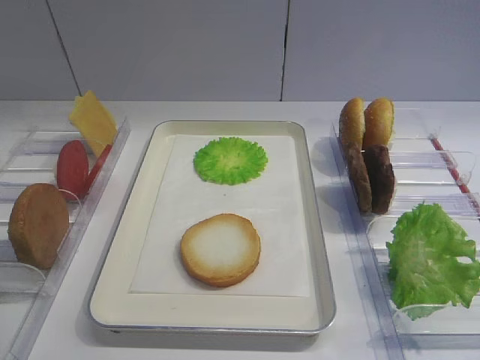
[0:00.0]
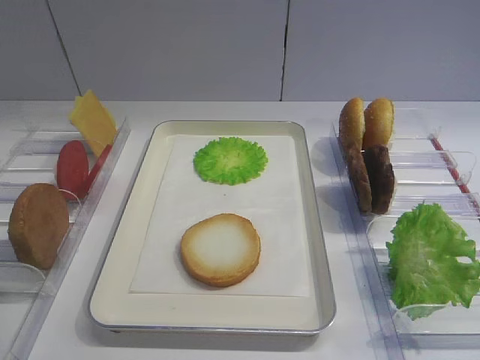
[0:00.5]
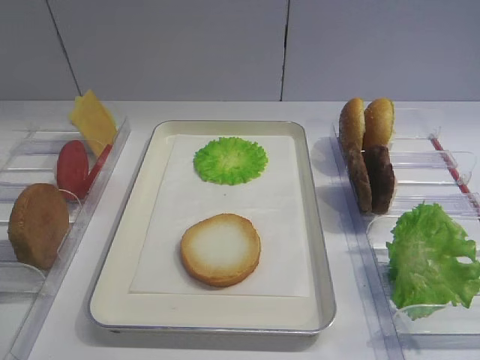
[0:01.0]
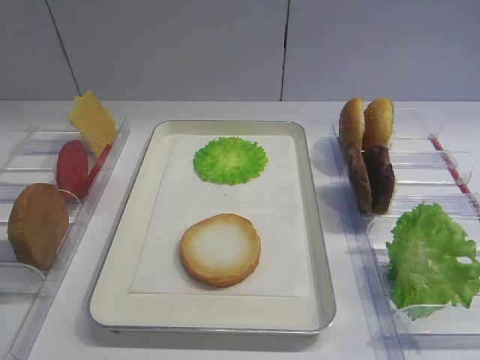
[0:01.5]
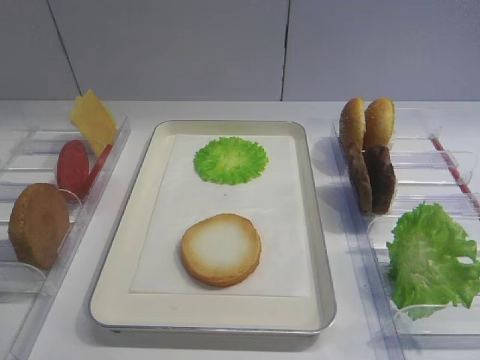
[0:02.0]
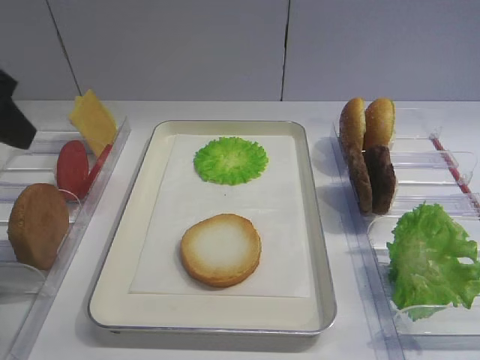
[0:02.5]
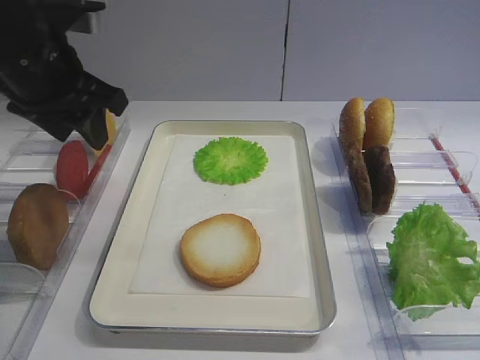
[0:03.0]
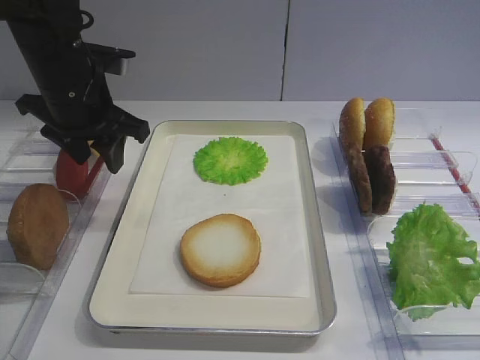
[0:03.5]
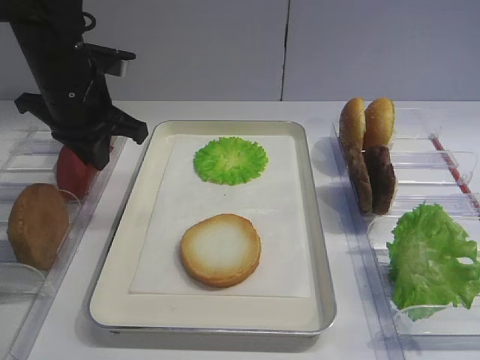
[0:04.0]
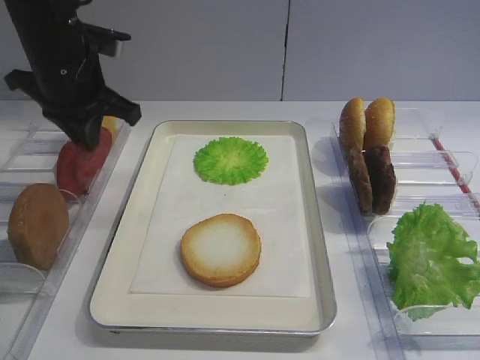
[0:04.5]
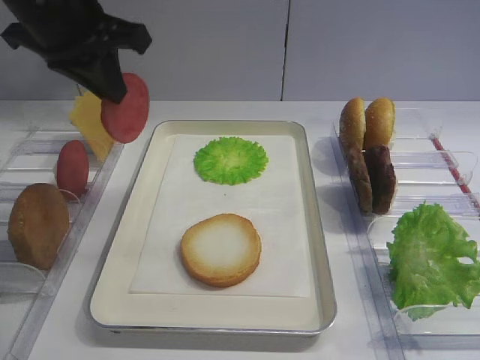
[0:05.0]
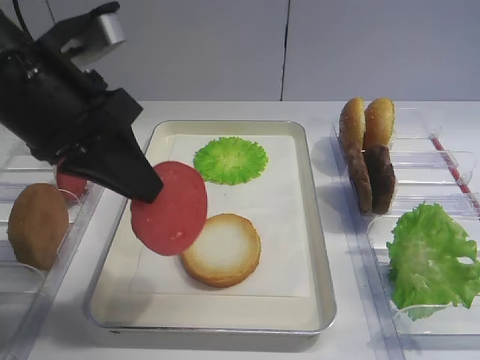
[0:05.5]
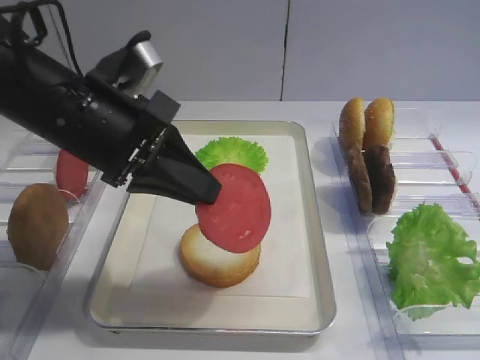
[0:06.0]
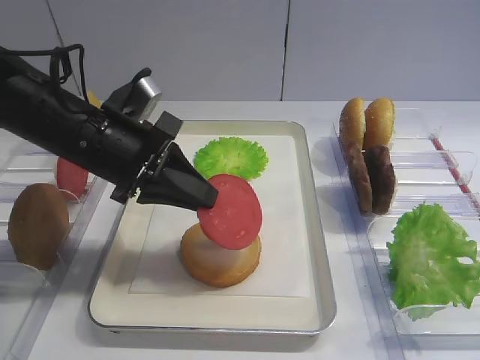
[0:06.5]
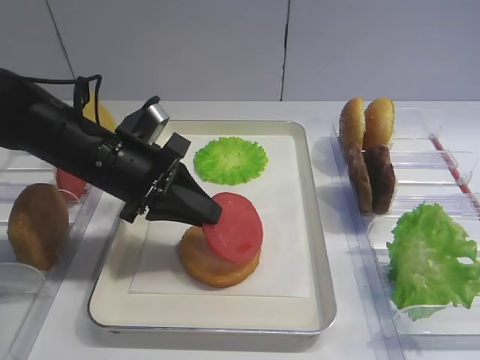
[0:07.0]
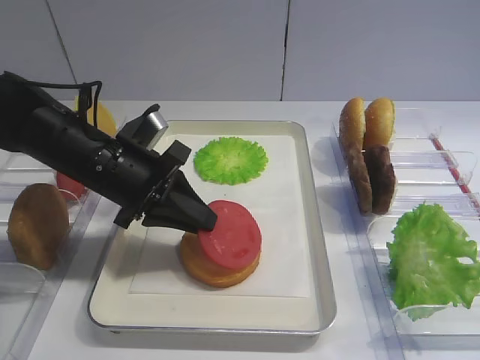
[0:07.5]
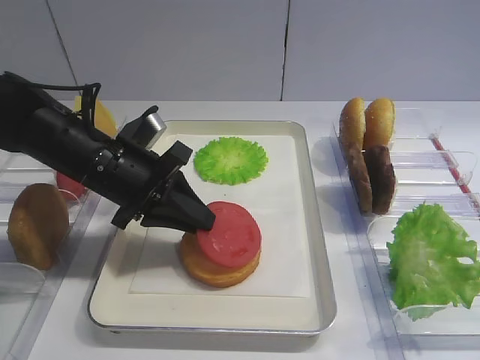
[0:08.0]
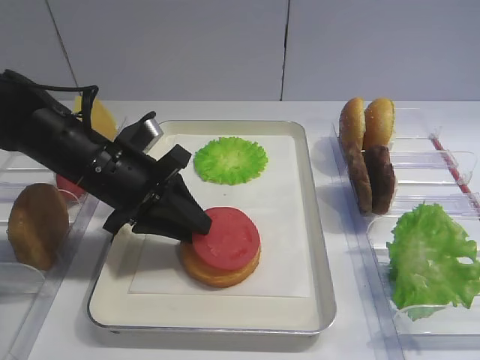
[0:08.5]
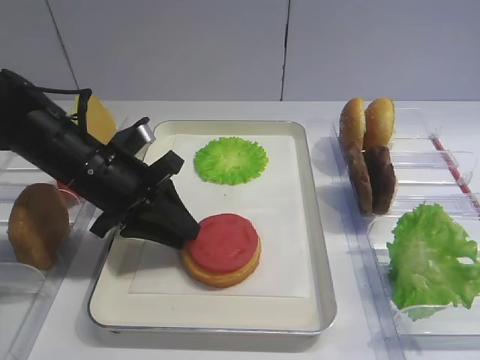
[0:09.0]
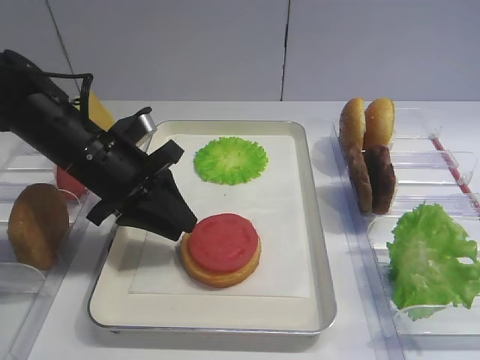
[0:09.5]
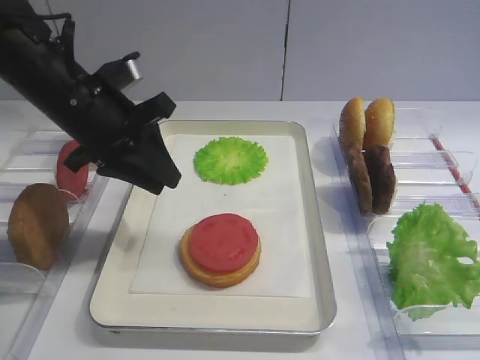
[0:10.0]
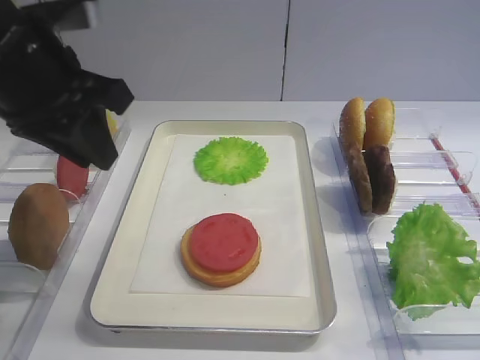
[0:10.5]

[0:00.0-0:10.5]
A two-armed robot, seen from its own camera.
Step, 0:00.0 to 0:04.5: Pick up the tomato slice with the left gripper.
Step, 0:05.0 to 0:09.5: Place the tomato slice on the bread slice with the left gripper.
0:02.0 to 0:04.0: The left gripper travels forward by approximately 30 cm, and closes its fingers.
0:04.0 to 0:06.5: The left gripper is displaced backward by about 10 cm, and moves some 10 cm upward and comes back.
0:06.5 to 0:08.5: The left gripper opens its fingers.
0:08.5 to 0:10.5: The left gripper heads upward, covering approximately 15 cm.

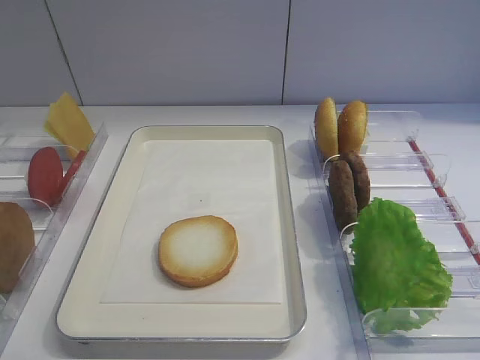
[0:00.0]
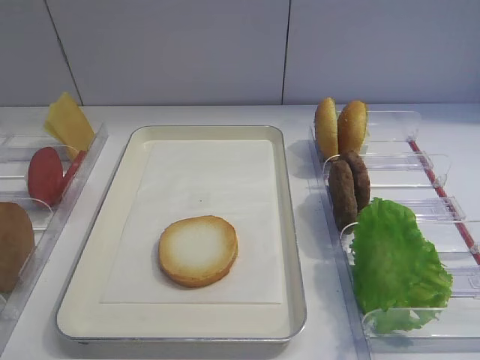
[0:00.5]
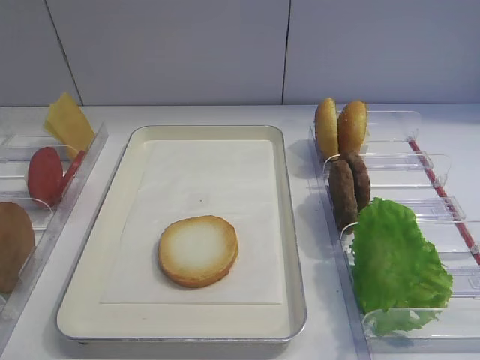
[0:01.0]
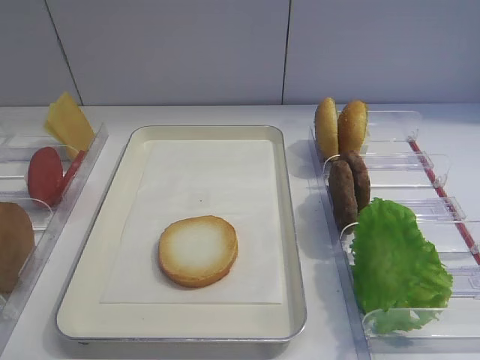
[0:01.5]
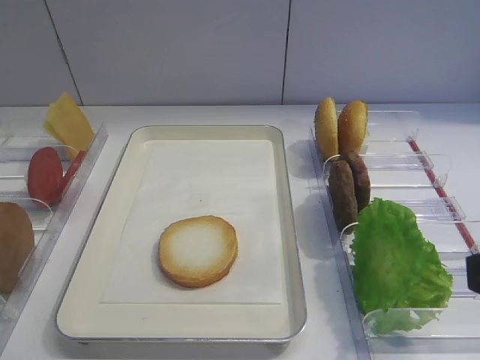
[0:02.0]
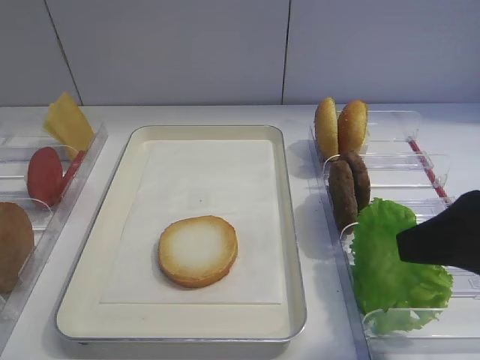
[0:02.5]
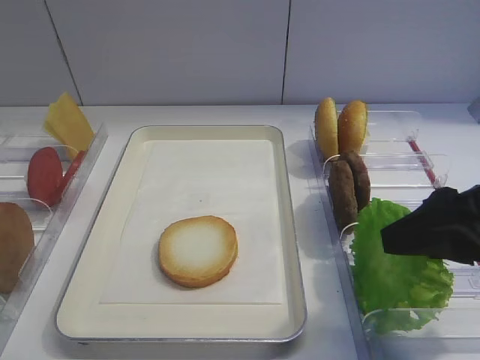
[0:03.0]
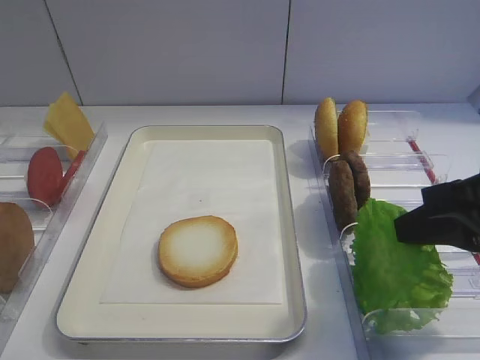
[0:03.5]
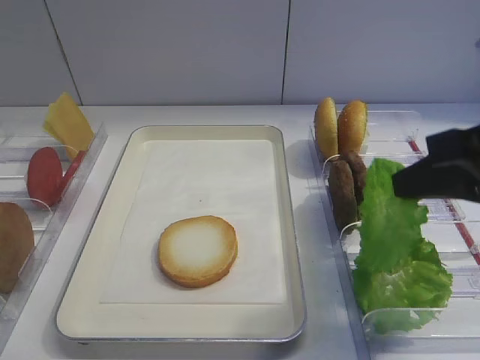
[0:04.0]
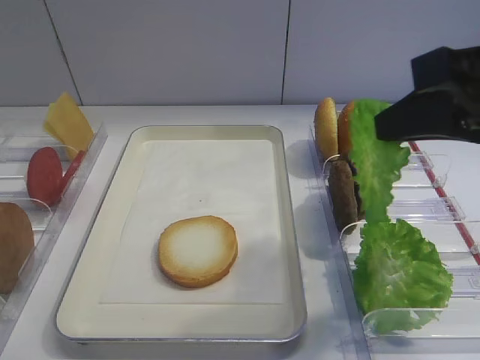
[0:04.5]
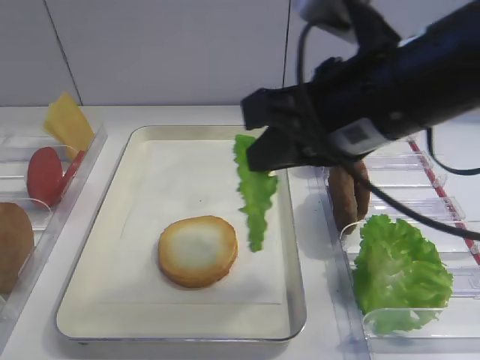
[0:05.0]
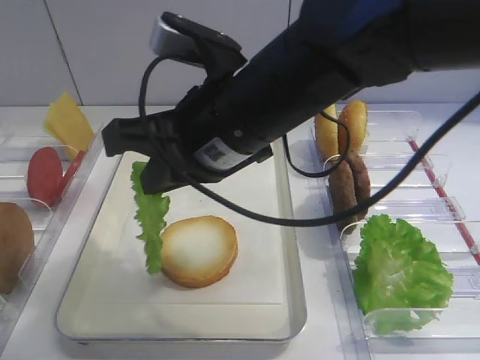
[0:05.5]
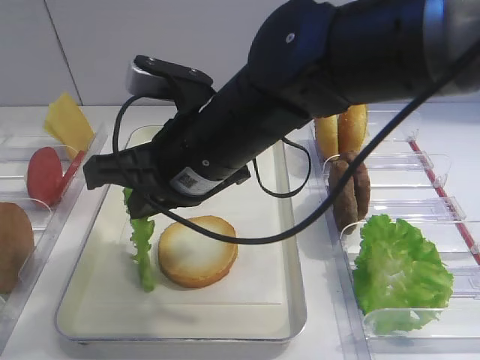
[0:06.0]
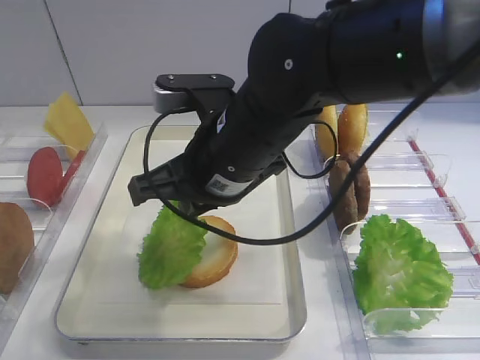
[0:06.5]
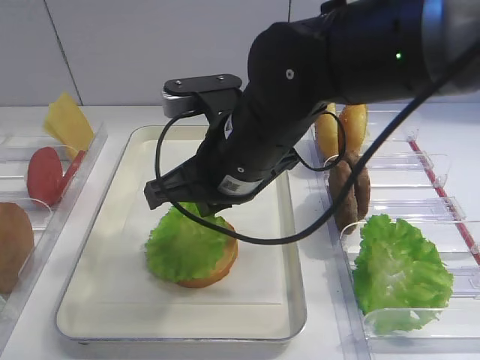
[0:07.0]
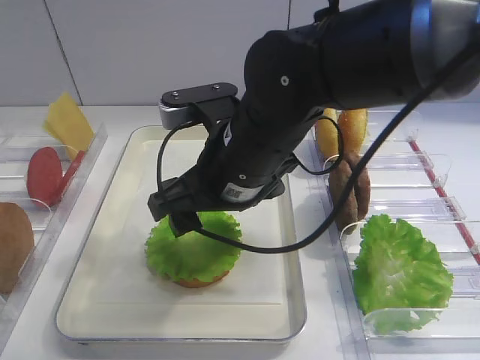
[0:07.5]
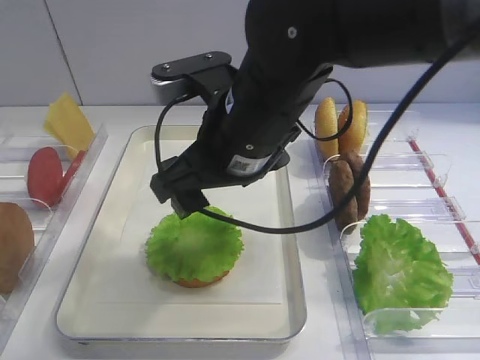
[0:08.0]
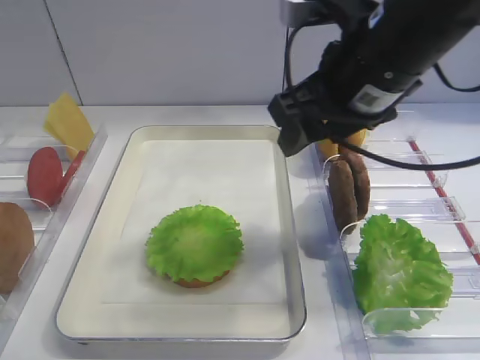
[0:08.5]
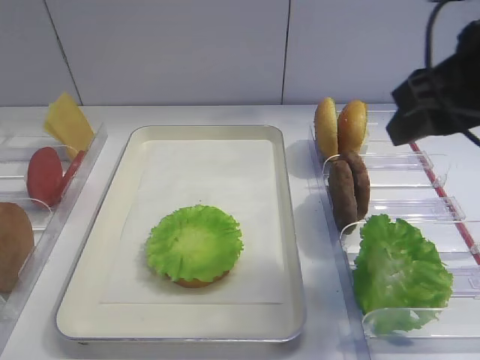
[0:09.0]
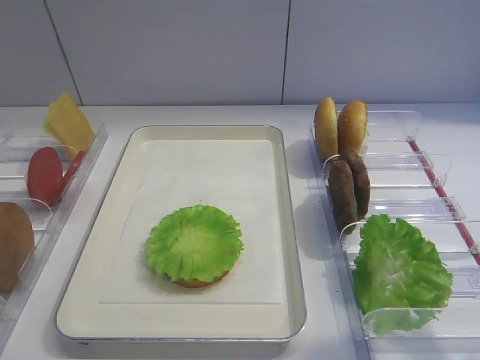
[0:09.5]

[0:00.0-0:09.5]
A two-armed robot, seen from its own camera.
Step, 0:00.0 to 0:03.5: Pick up the lettuce leaf with the right gripper.
Step, 0:04.5 to 0:07.5: Place the lettuce leaf on the bread slice with the right gripper.
0:02.0 to 0:04.0: The right gripper is displaced forward by about 10 cm, and closes its fingers.
0:04.0 to 0:05.5: The right gripper moves to the left, about 20 cm.
0:05.5 to 0:07.5: The right gripper is displaced downward by some 5 cm, and opens up.
0:07.5 to 0:09.5: The right gripper goes some 25 cm to the right and backward.

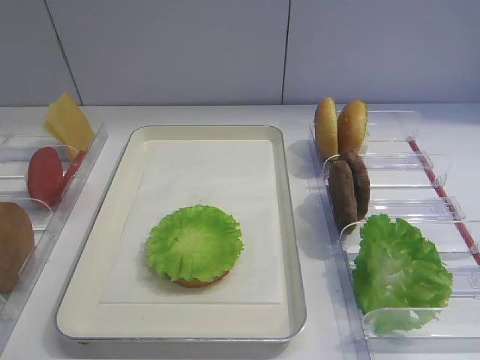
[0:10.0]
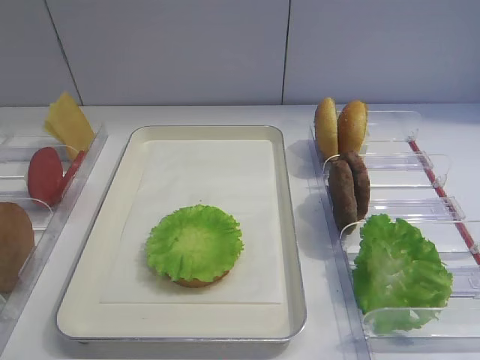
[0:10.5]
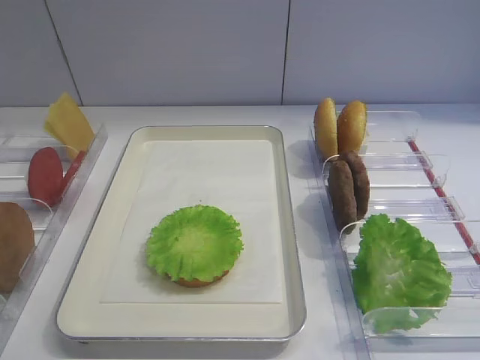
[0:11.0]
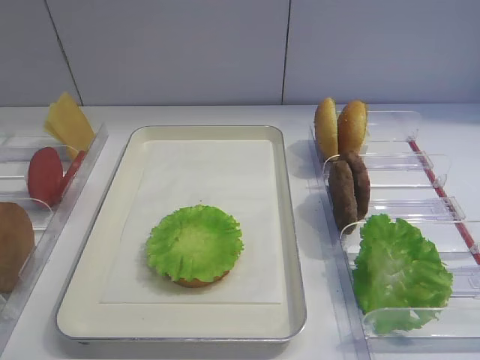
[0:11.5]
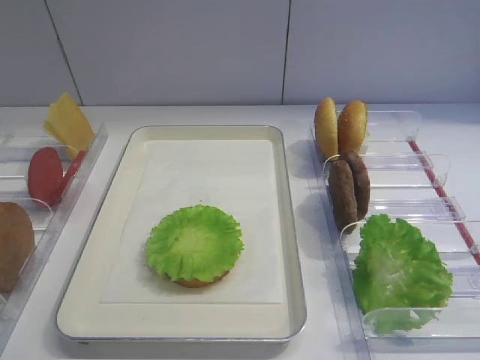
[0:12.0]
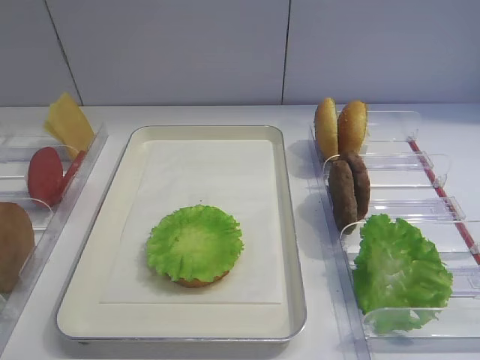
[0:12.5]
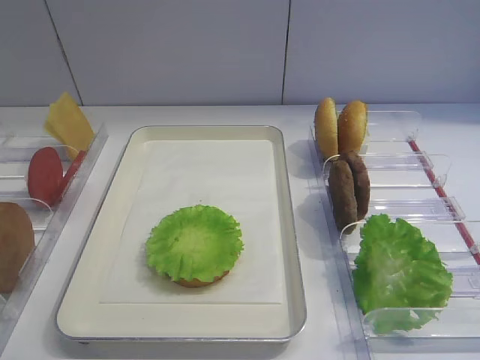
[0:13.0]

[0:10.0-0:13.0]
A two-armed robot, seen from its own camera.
0:11.5 to 0:13.0: The two grippers keep their place.

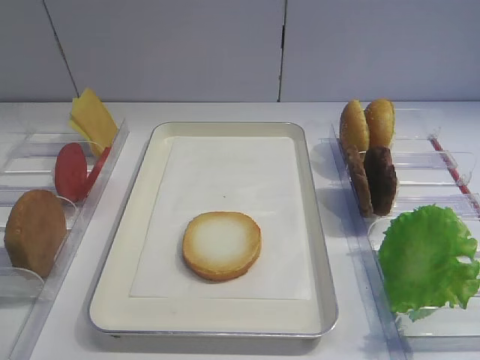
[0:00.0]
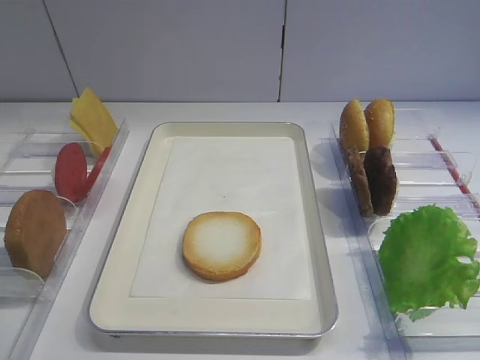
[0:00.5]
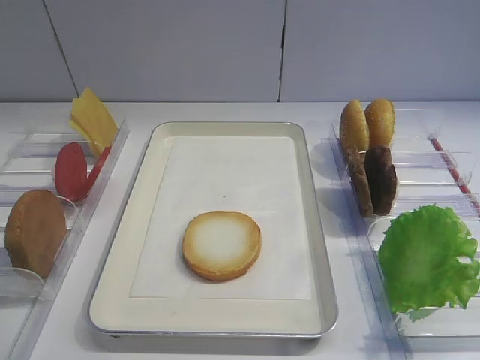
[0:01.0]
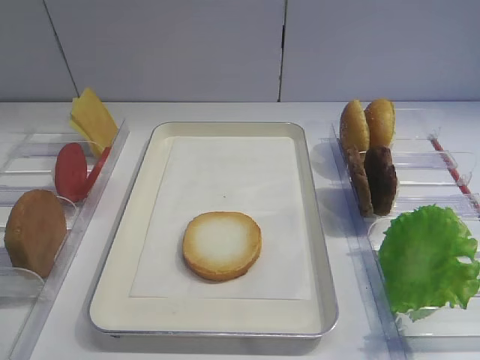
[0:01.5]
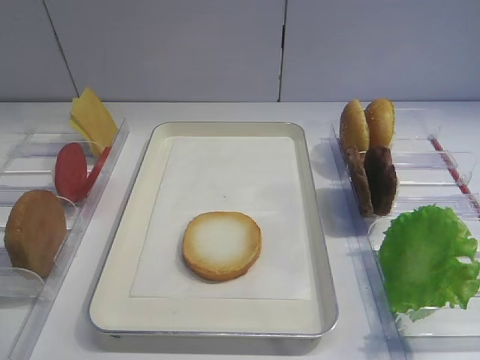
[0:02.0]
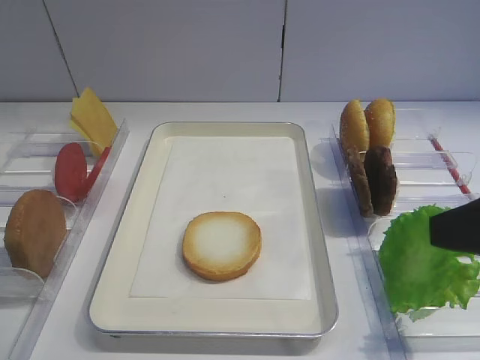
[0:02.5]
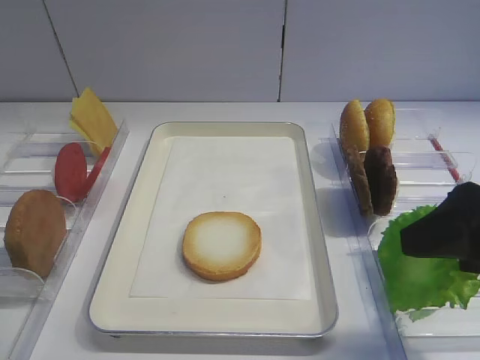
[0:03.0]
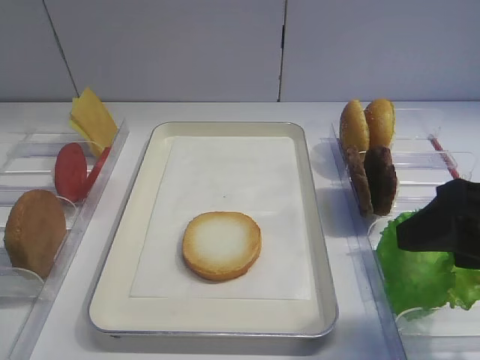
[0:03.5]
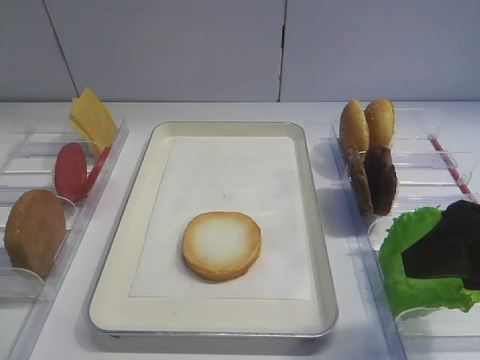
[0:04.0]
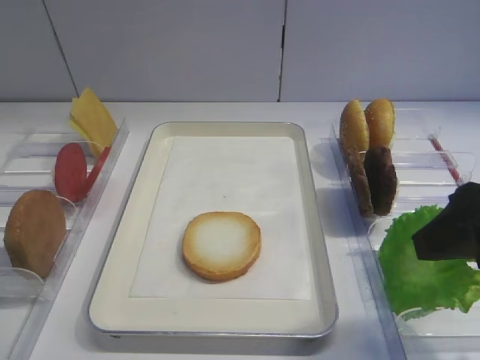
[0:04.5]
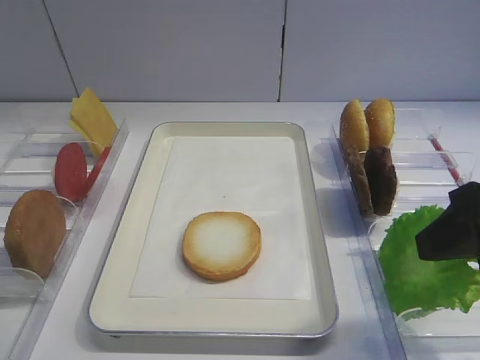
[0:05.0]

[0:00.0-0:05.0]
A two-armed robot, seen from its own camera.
0:02.5 to 0:05.0: The grippers stay close to where they were, moving slightly.
